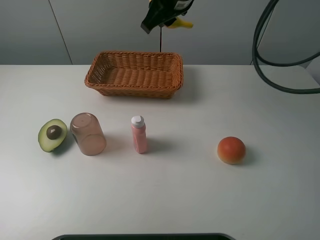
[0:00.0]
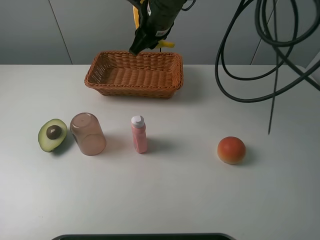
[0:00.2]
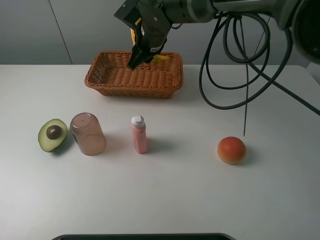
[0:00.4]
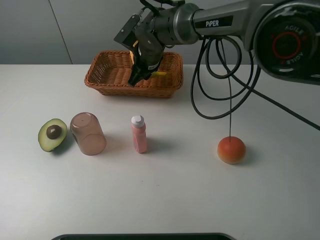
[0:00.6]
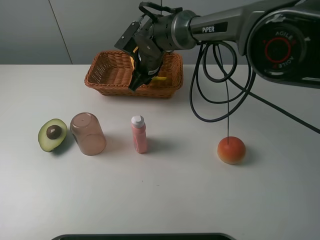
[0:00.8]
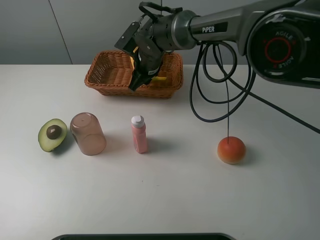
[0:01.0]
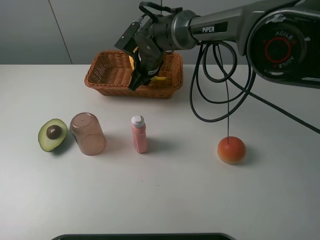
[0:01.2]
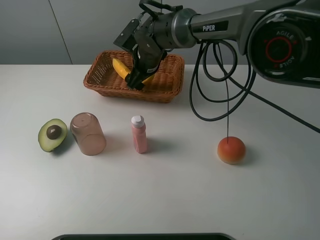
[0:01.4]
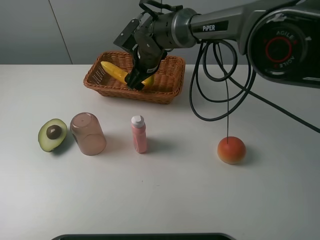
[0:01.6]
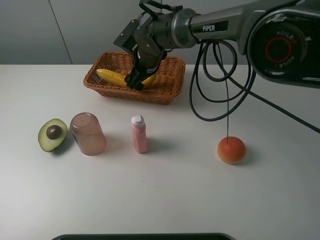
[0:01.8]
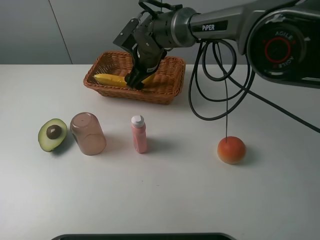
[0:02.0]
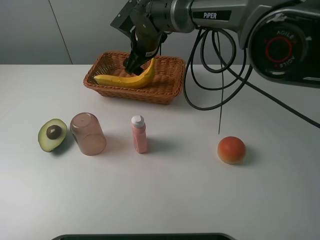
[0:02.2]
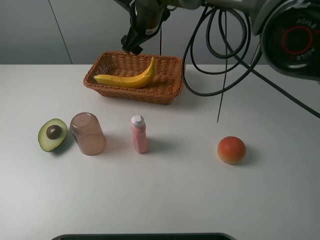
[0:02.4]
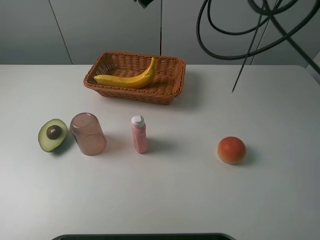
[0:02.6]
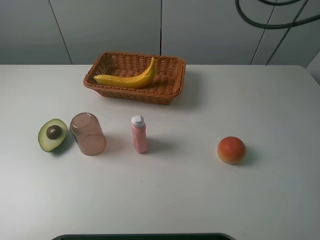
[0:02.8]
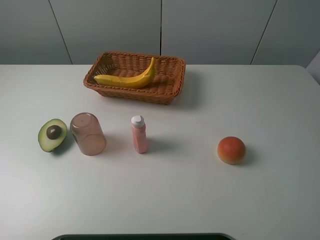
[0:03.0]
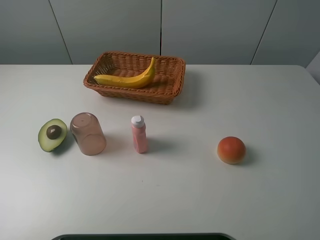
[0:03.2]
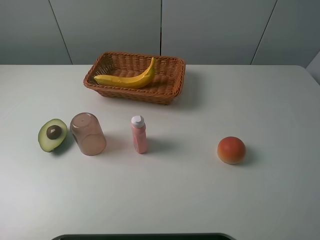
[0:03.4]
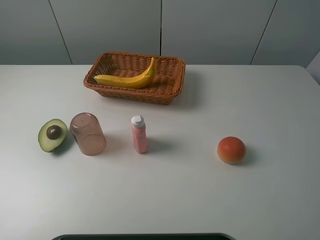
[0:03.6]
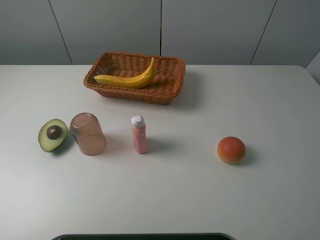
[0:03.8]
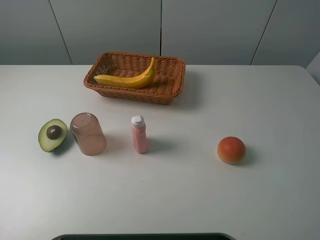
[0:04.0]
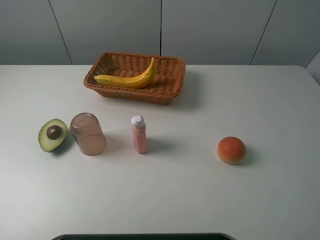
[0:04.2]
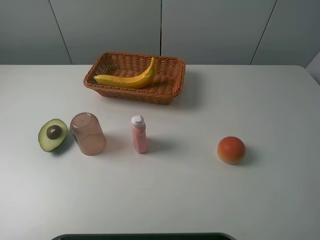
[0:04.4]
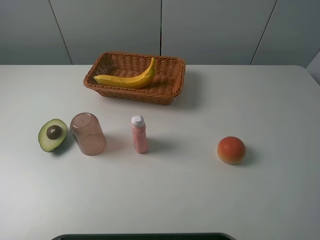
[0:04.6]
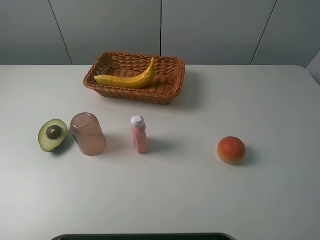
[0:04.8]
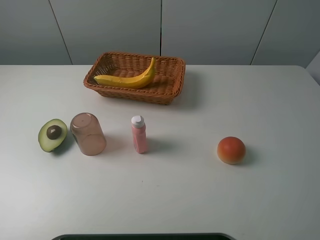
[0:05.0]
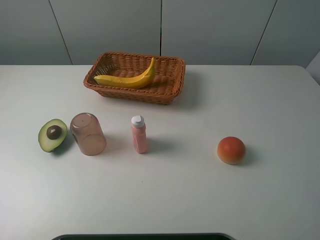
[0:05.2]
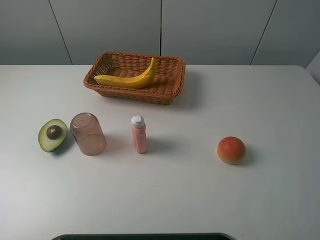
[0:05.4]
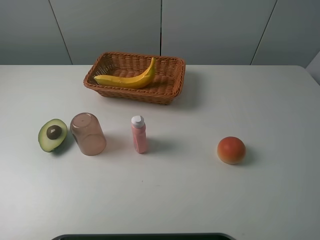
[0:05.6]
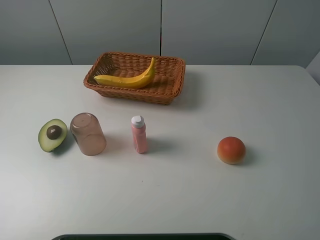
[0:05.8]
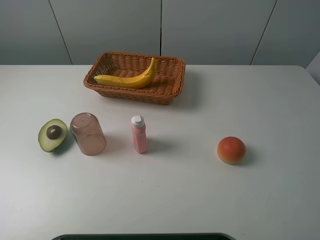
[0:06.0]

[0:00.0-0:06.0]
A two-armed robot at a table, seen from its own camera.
Task of the whole recording: randomly pick up an item from the table and put it in the basket.
Step, 0:00.0 to 0:02.2: Place the banana into the basket with the right gripper.
0:00.0 to 0:01.6: The right gripper travels downward by some 15 cm, and opens its fingers.
0:01.6 to 0:03.0: The right gripper moves upward and to the right, some 40 cm.
